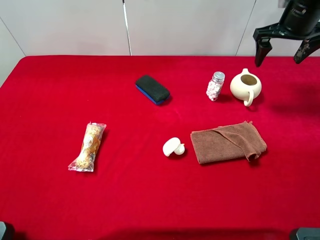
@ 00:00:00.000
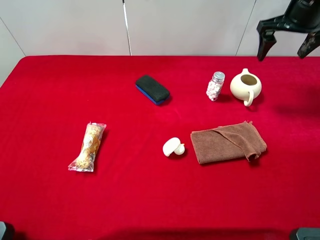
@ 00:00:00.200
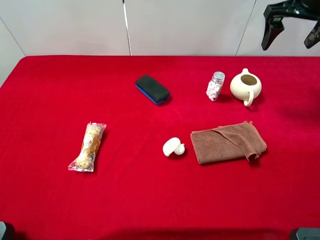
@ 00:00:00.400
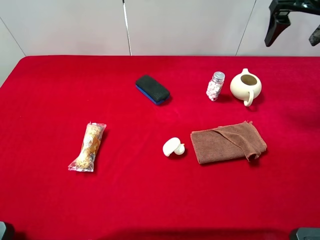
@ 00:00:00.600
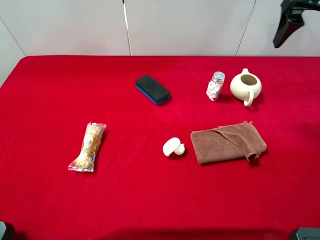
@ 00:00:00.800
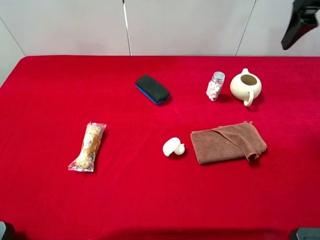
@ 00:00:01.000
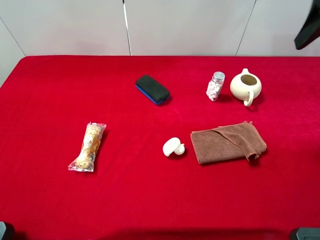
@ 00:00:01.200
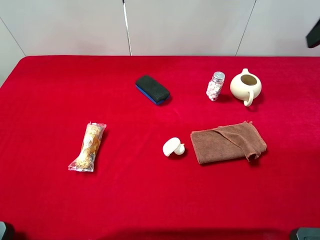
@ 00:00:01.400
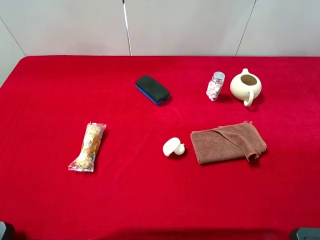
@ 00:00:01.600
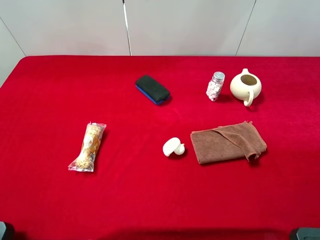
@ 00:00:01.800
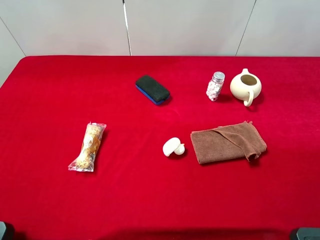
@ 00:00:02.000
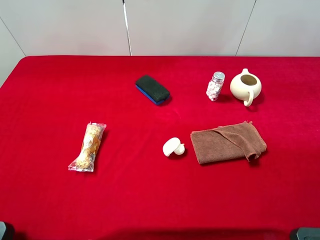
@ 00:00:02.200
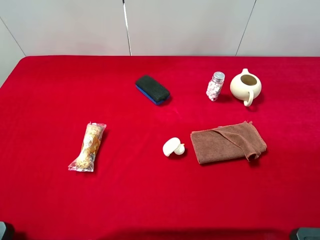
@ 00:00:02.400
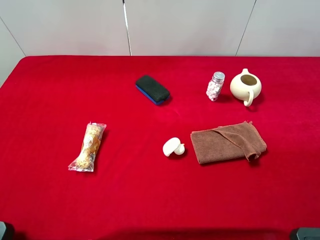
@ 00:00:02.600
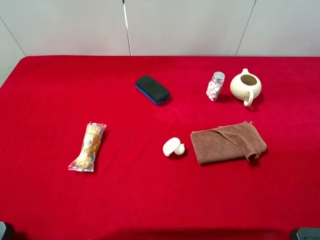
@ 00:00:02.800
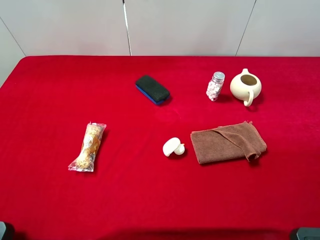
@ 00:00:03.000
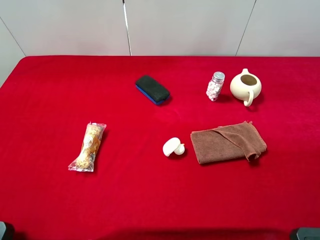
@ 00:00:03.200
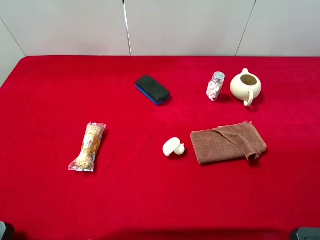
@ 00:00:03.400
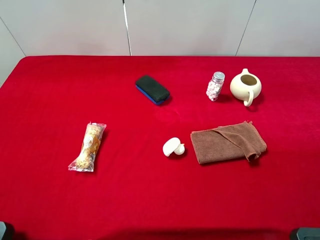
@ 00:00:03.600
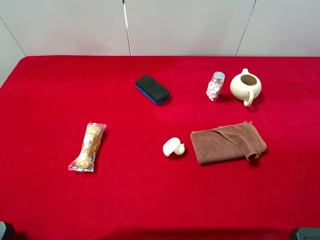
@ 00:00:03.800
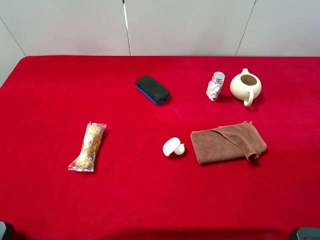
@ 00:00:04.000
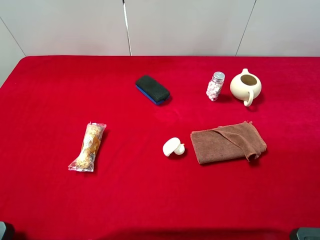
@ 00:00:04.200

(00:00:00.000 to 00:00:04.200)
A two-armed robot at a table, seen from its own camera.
Task of the whole recording: the gripper move the object.
00:00:00.000 - 00:00:01.400: The right gripper moves backward and upward, approximately 25 cm.
